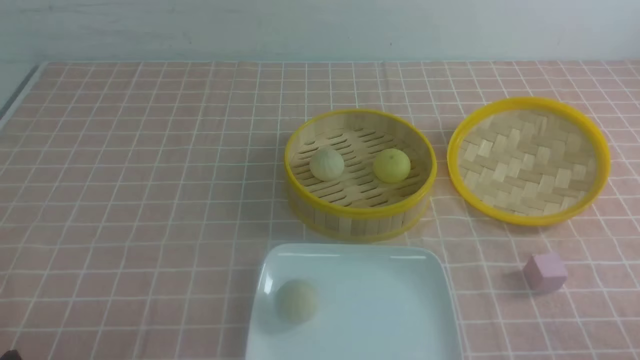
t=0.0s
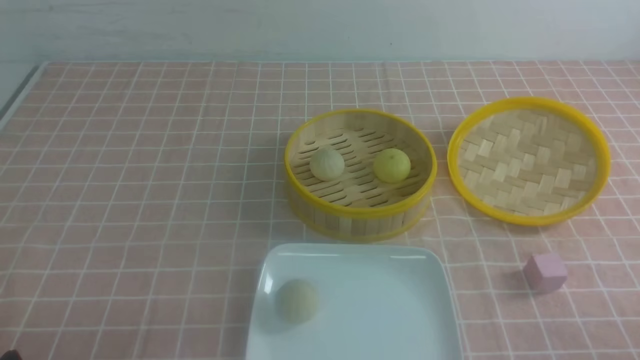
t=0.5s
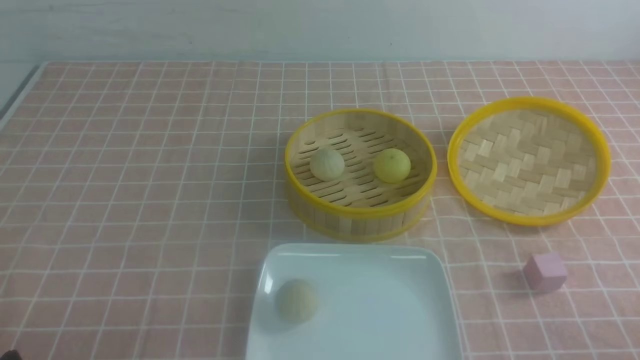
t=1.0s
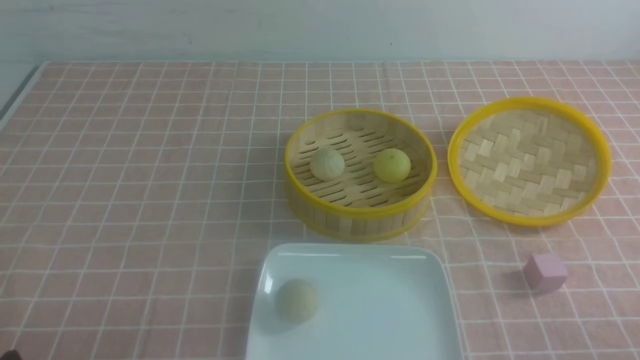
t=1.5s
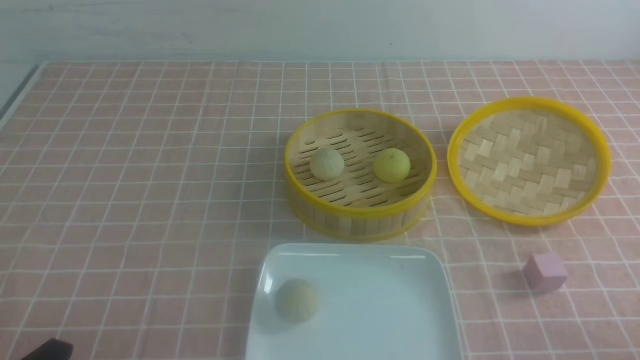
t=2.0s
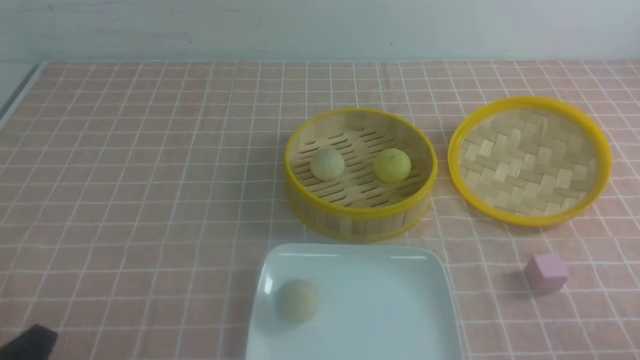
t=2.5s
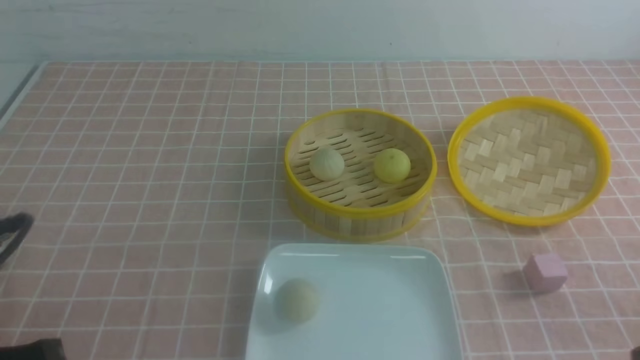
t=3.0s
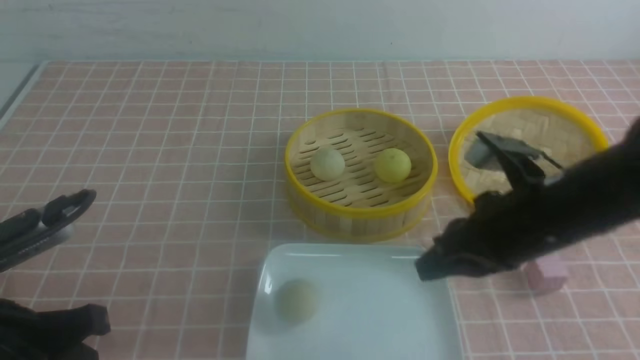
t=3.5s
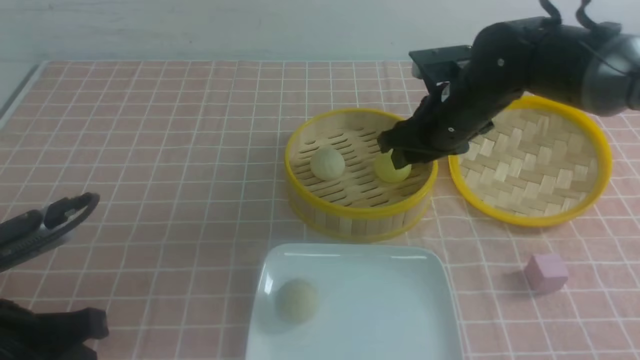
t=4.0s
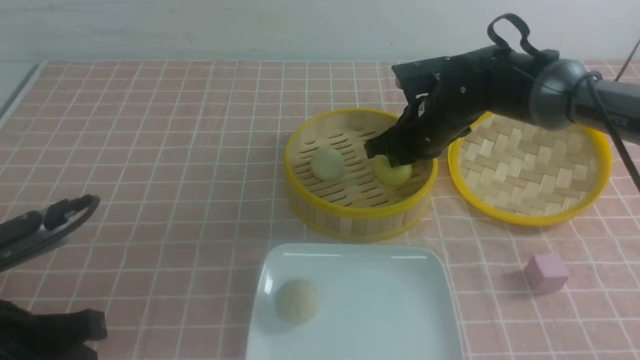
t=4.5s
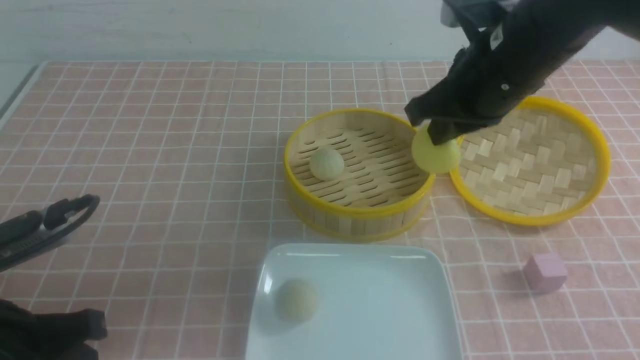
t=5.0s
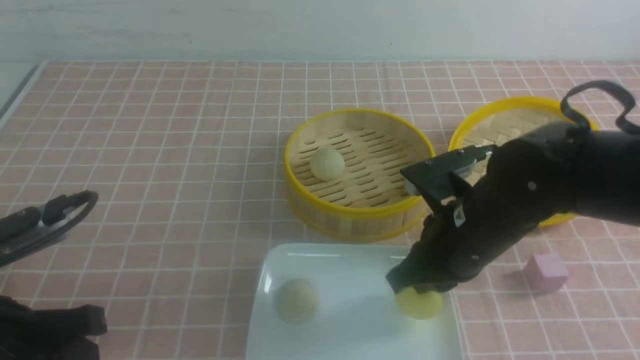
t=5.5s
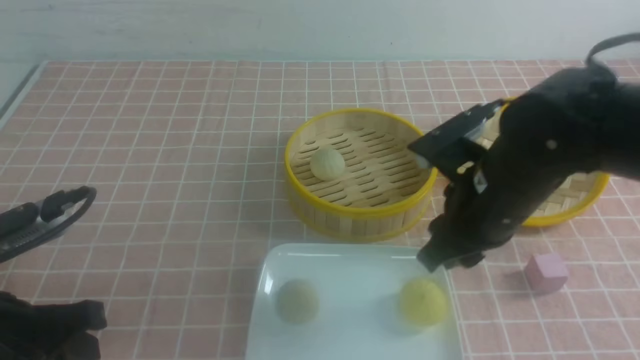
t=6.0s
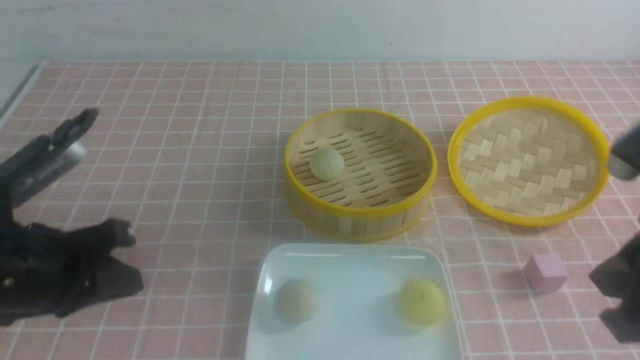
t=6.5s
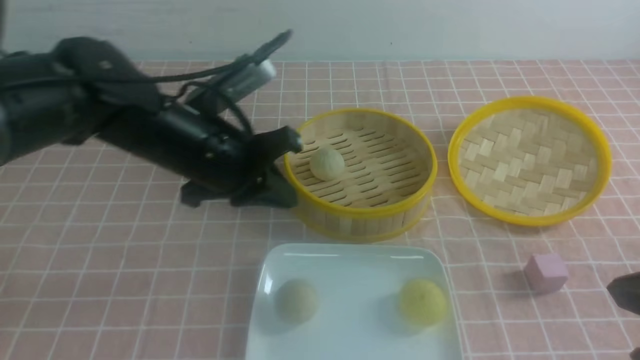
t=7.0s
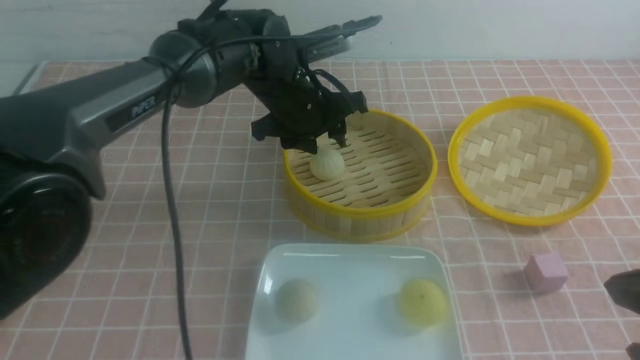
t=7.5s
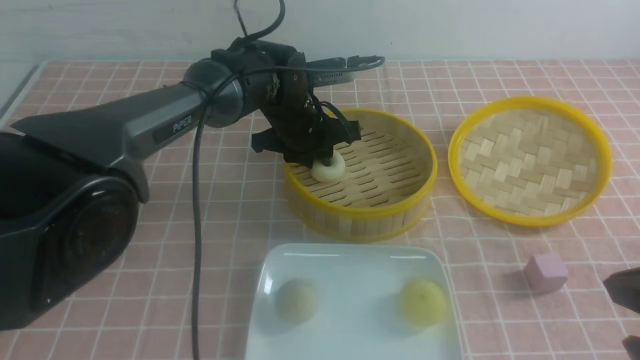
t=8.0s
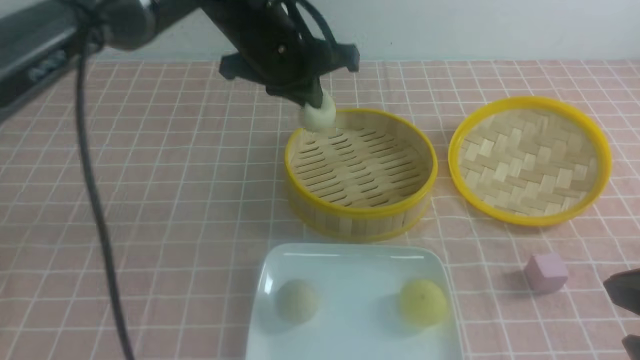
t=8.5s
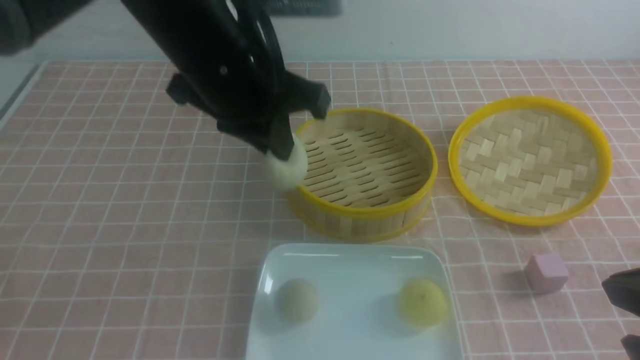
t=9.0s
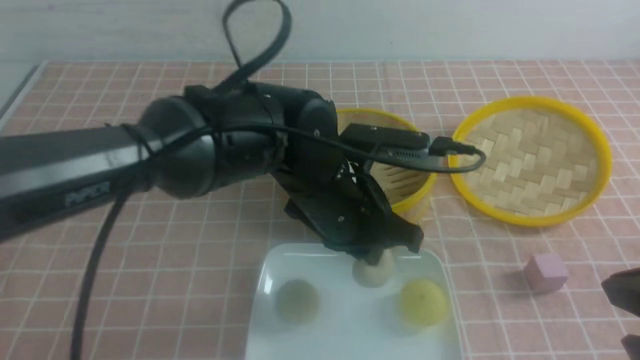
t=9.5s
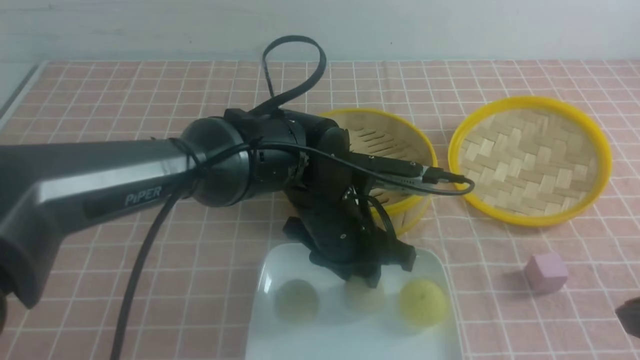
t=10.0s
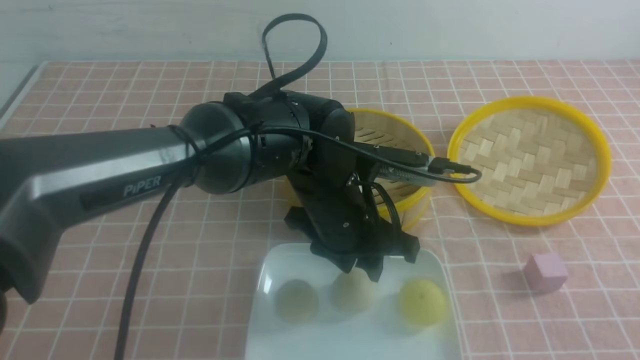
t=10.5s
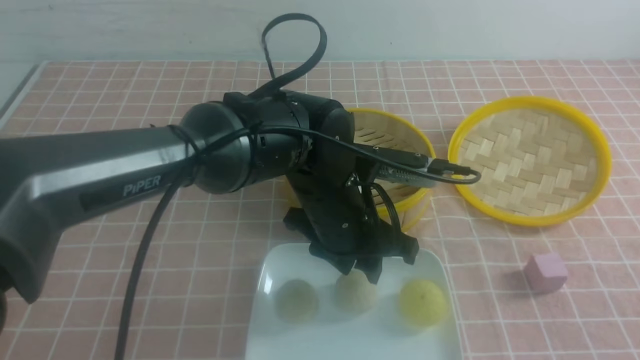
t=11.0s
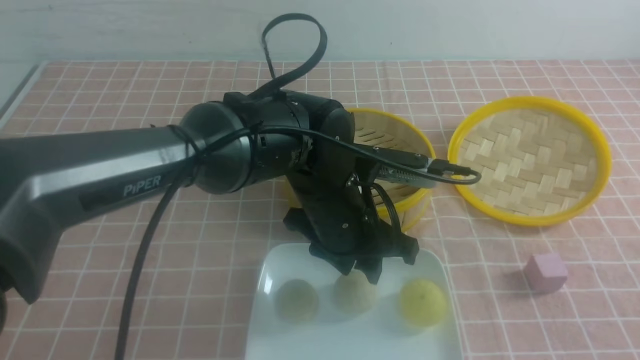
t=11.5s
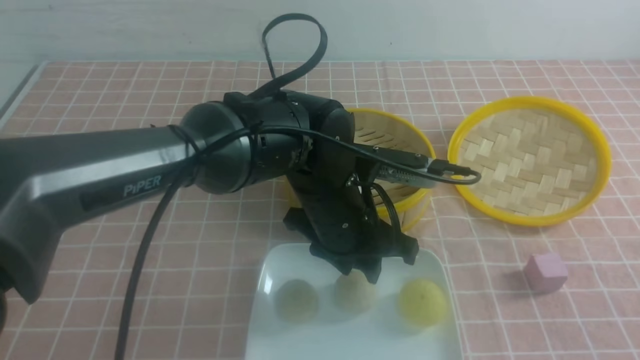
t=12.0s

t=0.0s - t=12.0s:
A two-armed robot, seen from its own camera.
Step, t=0.0s - t=4.5s: use the right arm to grab the steamed stuffed bun that is closest to it.
Step, t=5.0s - t=5.5s: use the right arm to put the steamed stuffed bun into the plate.
Step, t=6.0s - t=7.5s: use the left arm to grab the steamed stuffed bun that is closest to it.
Step, t=8.5s - t=10.0s: use the left arm to put the steamed stuffed bun into the plate.
t=2.0s - t=4.0s: The right gripper travels forward and to the left by roughly 40 cm, and closes, then reopens, while the left gripper heads forward and upward, covering some 10 cm, and closes its fingers.
t=4.0s - t=6.0s: The right gripper moves backward, roughly 15 cm, and closes, then opens again.
t=6.0s - t=8.0s: The right gripper travels backward and to the right by approximately 15 cm, and closes its fingers, while the left gripper goes approximately 35 cm forward and to the right, and closes and opens again.
t=8.0s - t=10.0s: The left gripper heads backward, covering approximately 15 cm, and closes, then reopens.
t=10.0s - t=12.0s: The right gripper changes place by some 5 cm.

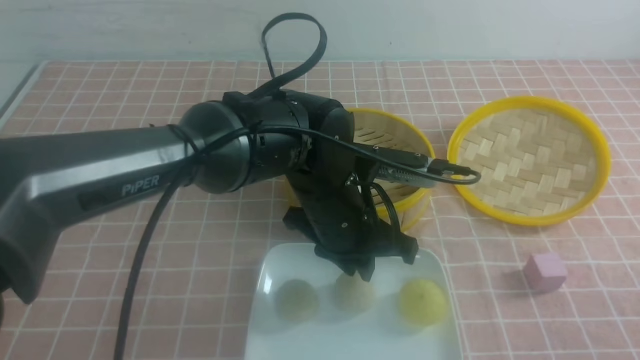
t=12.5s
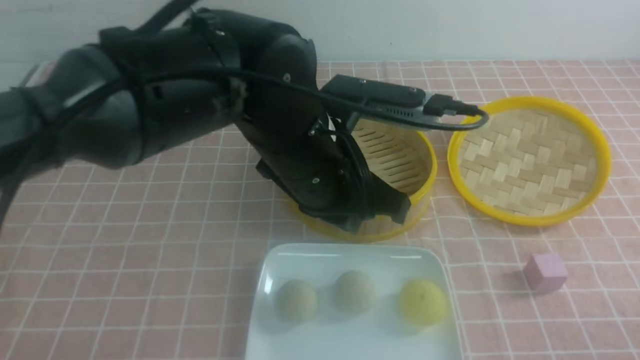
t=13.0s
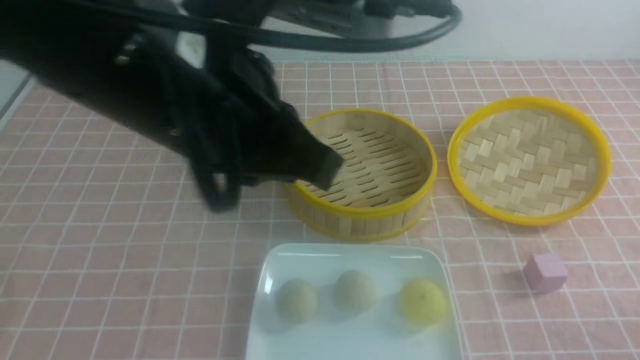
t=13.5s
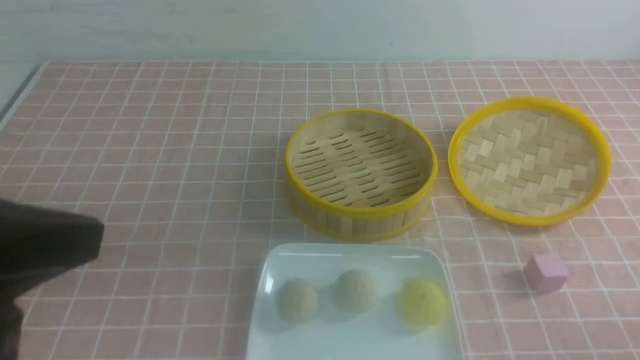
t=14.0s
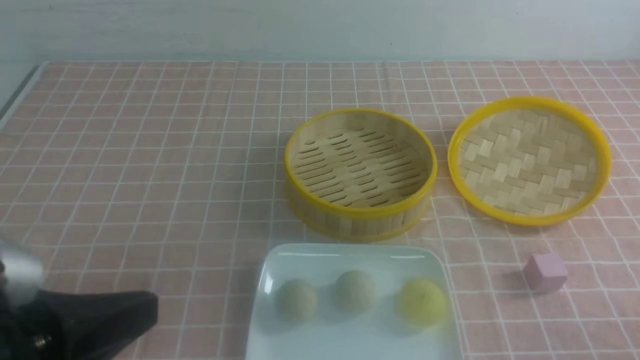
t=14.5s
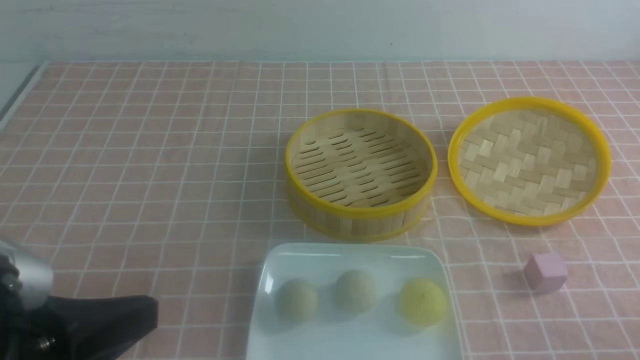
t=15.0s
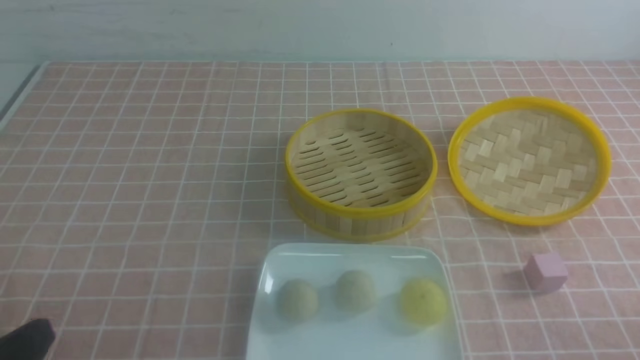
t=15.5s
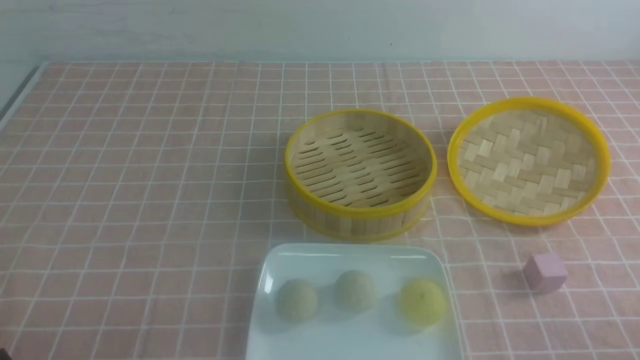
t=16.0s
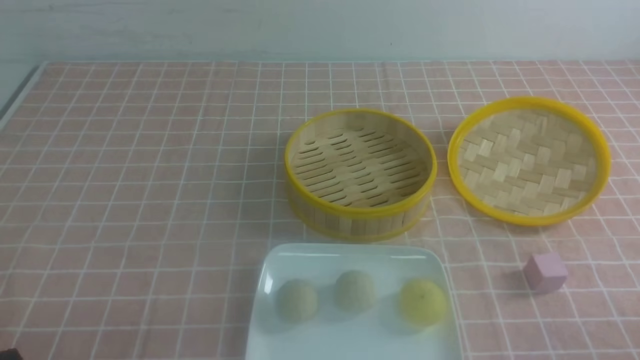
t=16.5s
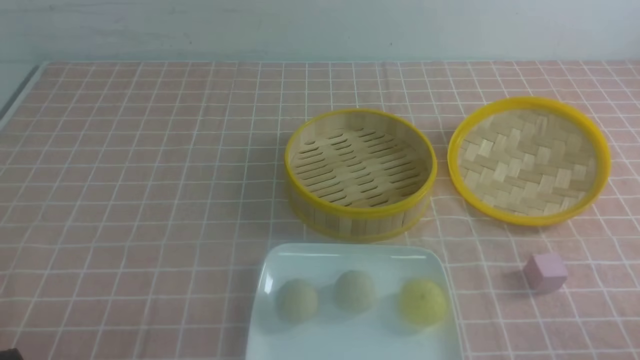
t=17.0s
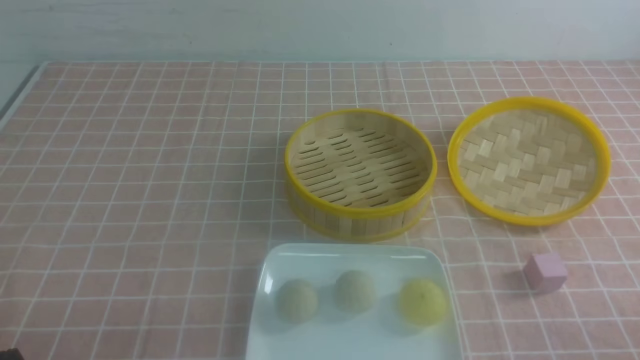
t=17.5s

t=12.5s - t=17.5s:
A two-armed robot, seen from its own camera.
t=12.5s - t=15.0s: The left gripper moves to the left and backward, some 30 cm, and closes.
t=15.0s - t=17.5s: The left gripper heads downward and to the left, covering some 15 cm.
